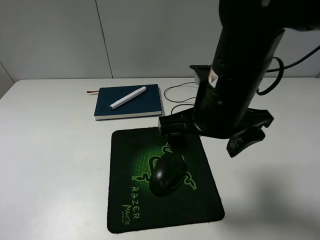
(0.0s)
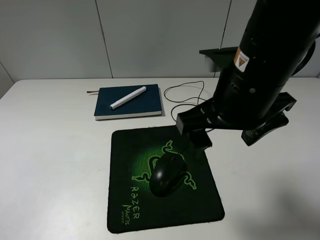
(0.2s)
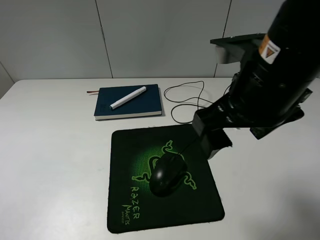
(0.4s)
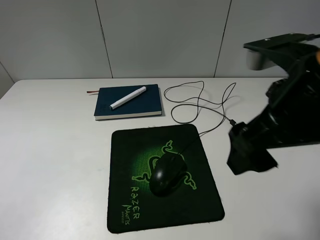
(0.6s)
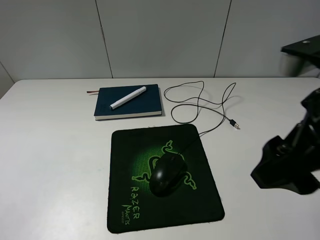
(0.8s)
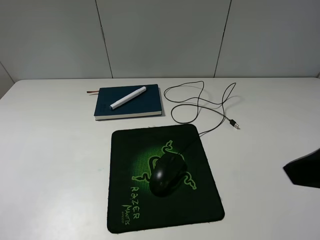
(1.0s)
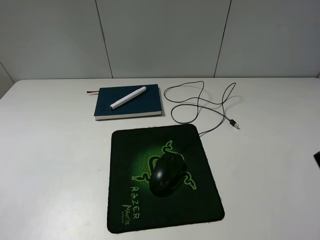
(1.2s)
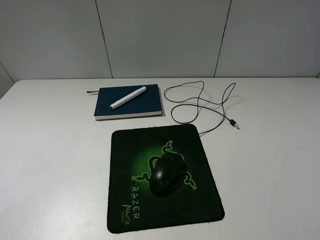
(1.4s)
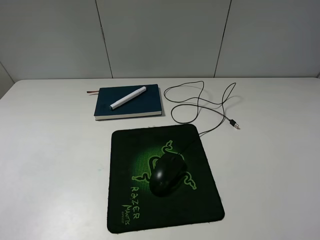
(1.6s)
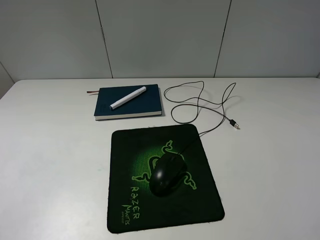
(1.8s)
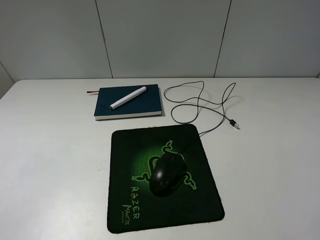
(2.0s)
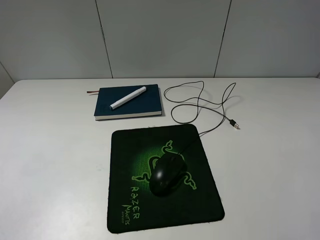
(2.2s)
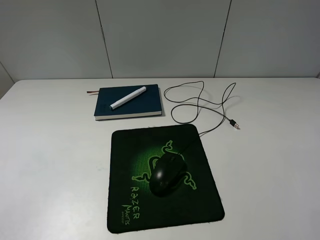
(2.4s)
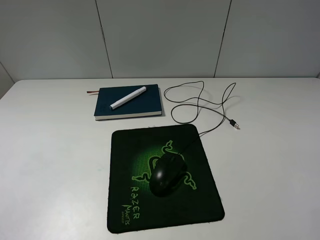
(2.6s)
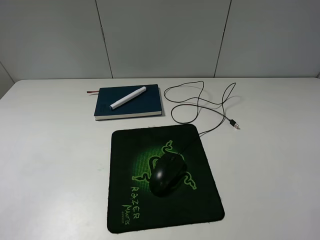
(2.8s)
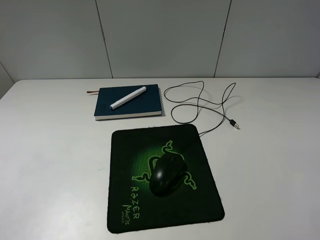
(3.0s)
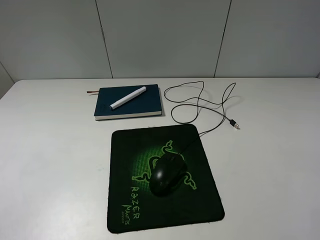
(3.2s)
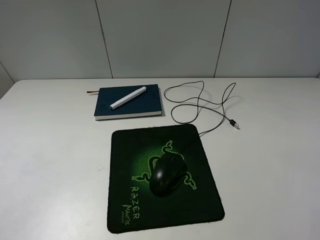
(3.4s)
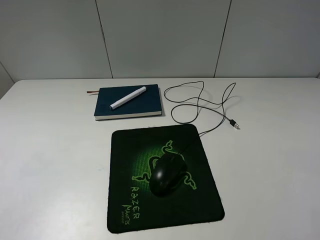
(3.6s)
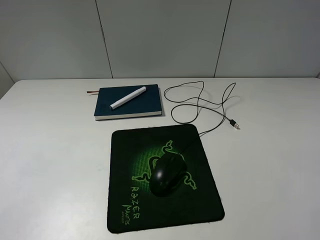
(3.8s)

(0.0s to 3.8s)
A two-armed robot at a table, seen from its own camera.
0.0s - 1.2s: The right gripper moves to the right, backward and upward, some 20 cm.
2.6s - 3.8s: Both grippers stay about where they are.
